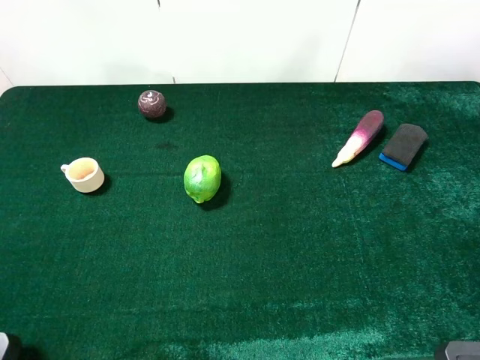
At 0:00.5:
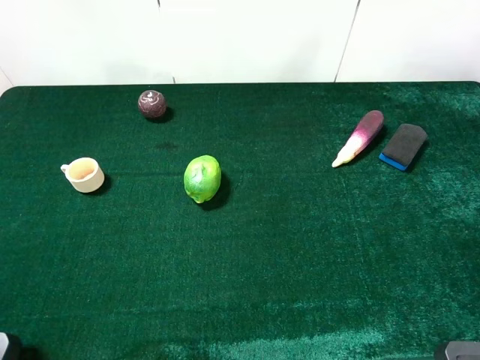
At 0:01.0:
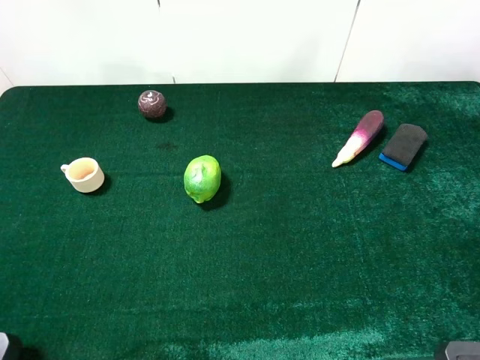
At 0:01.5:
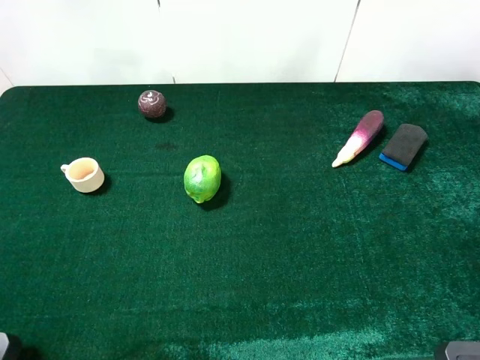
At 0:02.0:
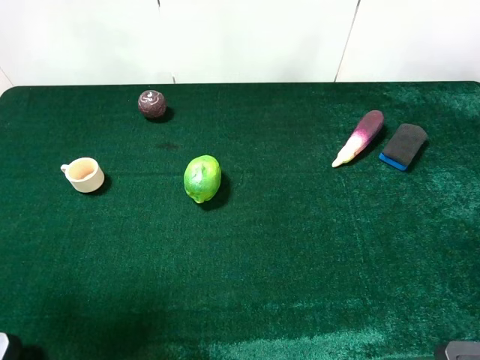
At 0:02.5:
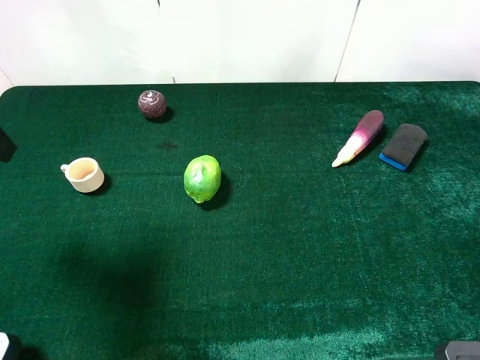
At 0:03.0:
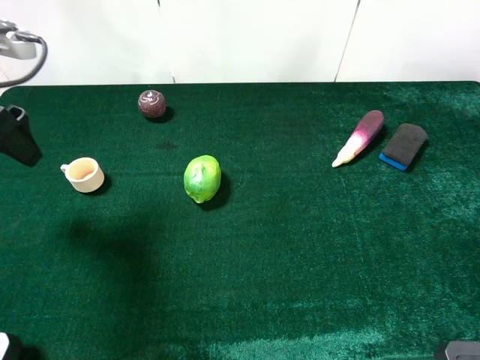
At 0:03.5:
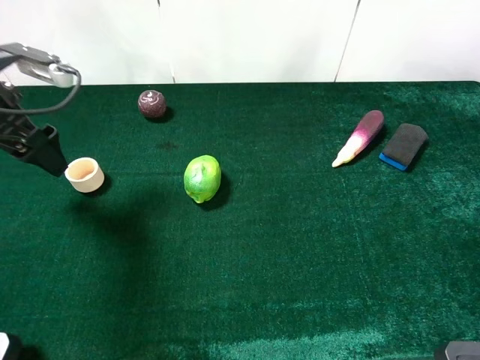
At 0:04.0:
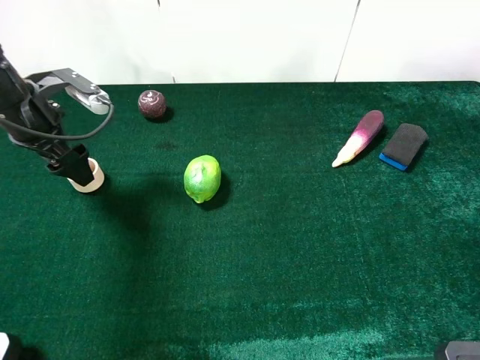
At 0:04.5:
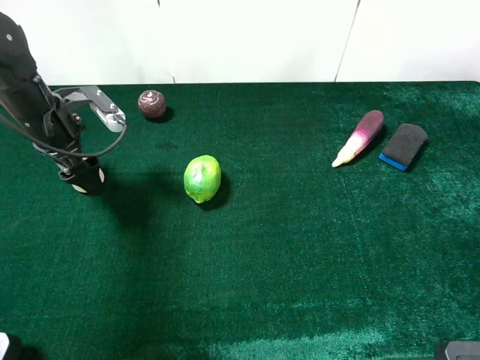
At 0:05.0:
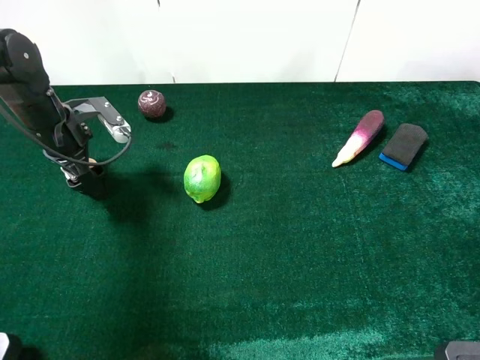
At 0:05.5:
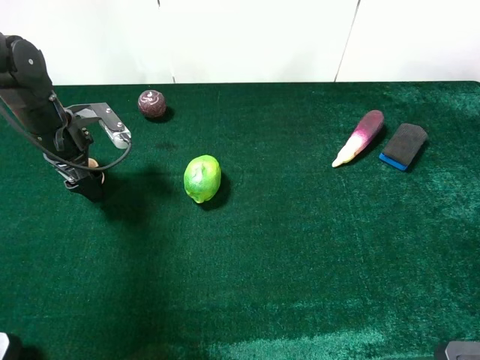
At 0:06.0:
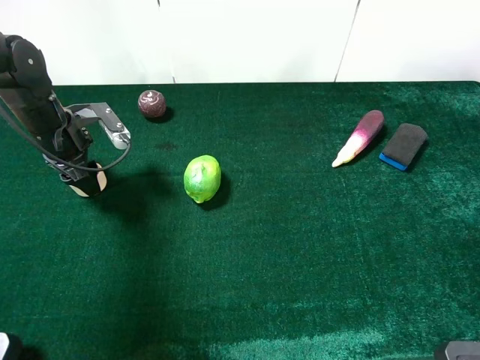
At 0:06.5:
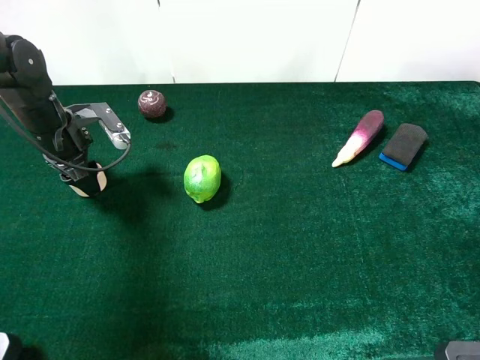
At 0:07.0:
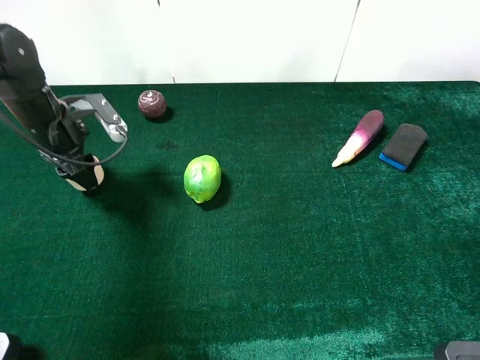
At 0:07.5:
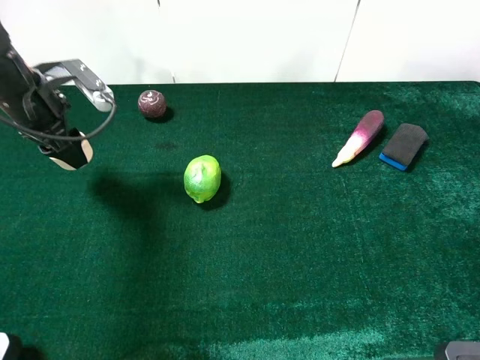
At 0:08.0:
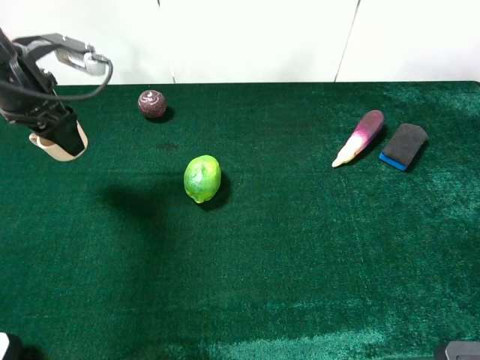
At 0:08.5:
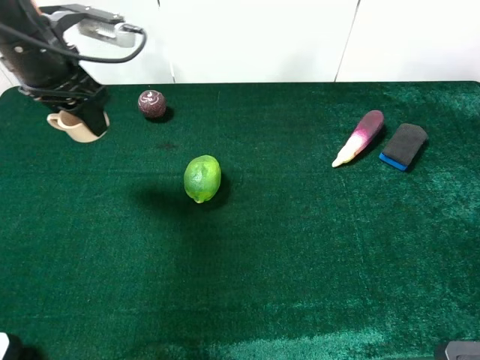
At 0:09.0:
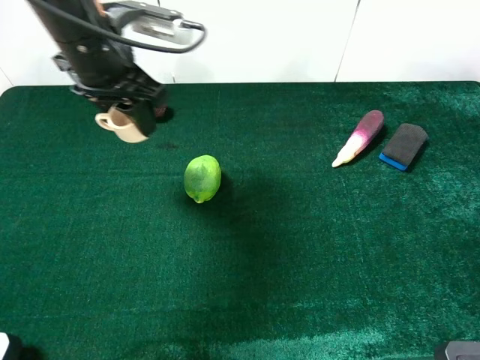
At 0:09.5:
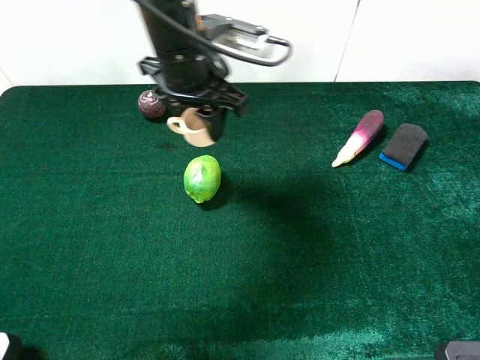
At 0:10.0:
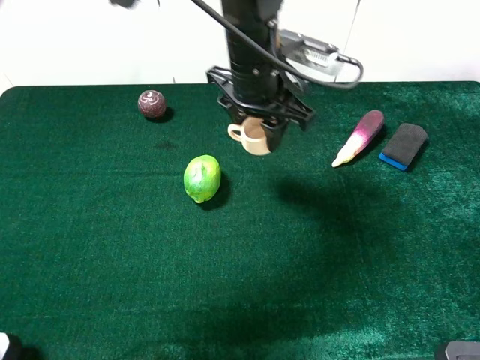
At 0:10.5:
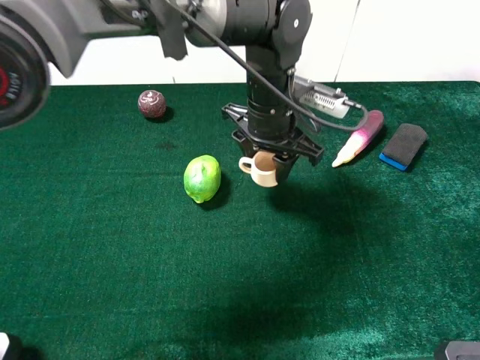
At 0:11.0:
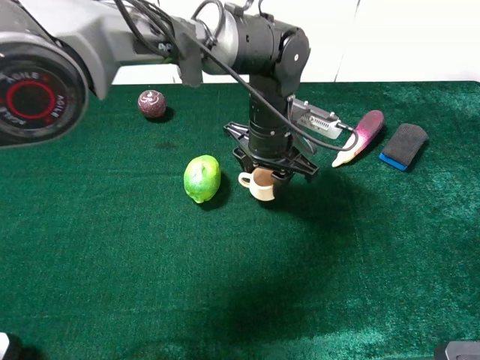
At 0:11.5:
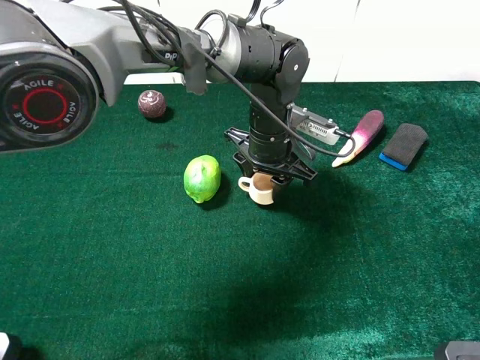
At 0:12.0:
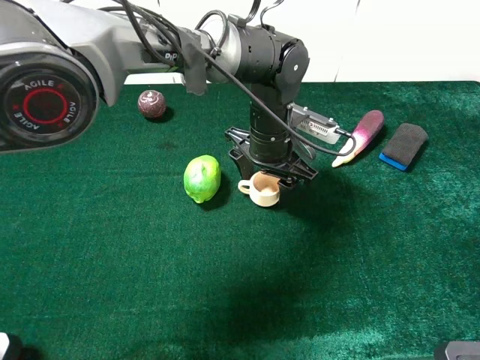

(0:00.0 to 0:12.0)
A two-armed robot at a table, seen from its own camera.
Task of the whole recording: the gripper move the object.
Step, 0:00.0 - 0:06.5: Grasp the teacup with the left gripper.
0:00.0 - 0:02.0: The left gripper is displaced forward by about 10 cm.
0:02.0 - 0:04.0: The left gripper goes some 25 cm forward and downward.
0:04.0 - 0:06.0: The left gripper shifts roughly 5 cm downward, and closes its fingers.
0:06.0 - 0:08.0: The left gripper shifts some 10 cm upward.
0:08.0 - 0:10.0: The left gripper moves to the right, some 30 cm.
0:10.0 - 0:12.0: The left gripper heads downward, covering some 10 cm, and opens up.

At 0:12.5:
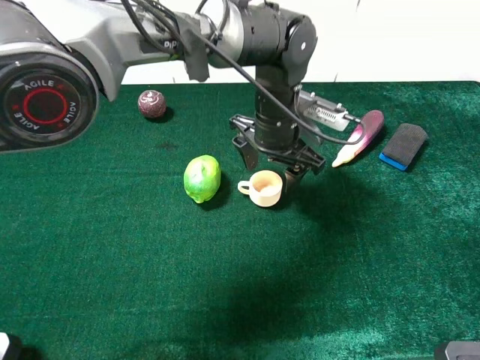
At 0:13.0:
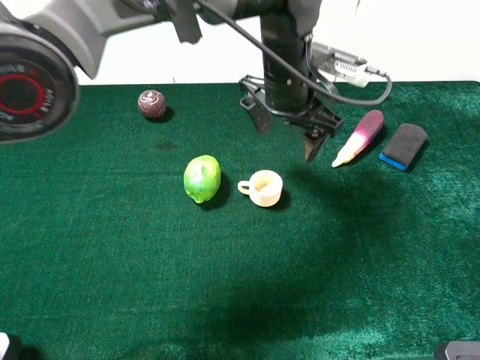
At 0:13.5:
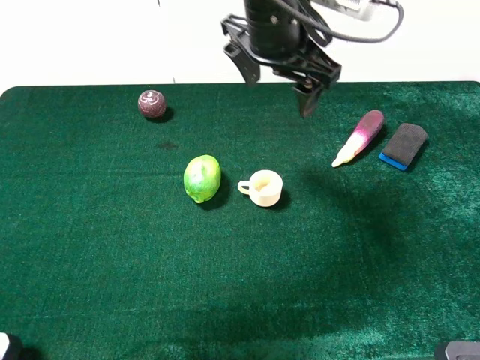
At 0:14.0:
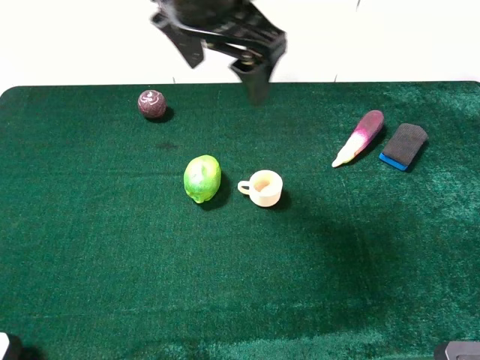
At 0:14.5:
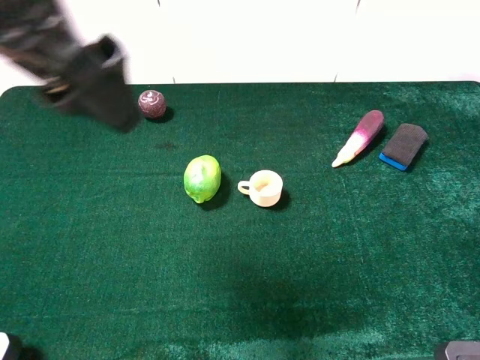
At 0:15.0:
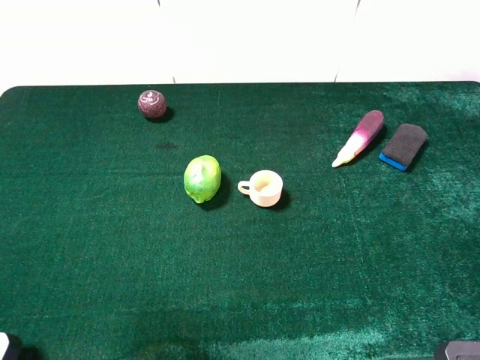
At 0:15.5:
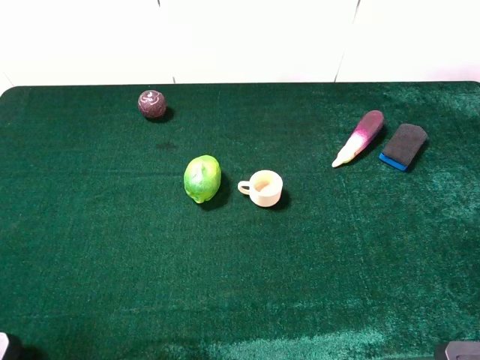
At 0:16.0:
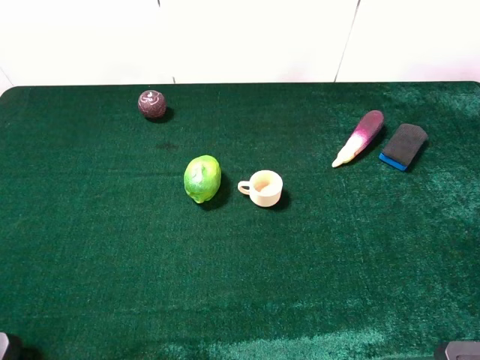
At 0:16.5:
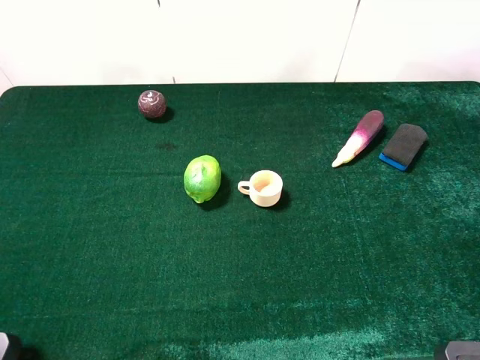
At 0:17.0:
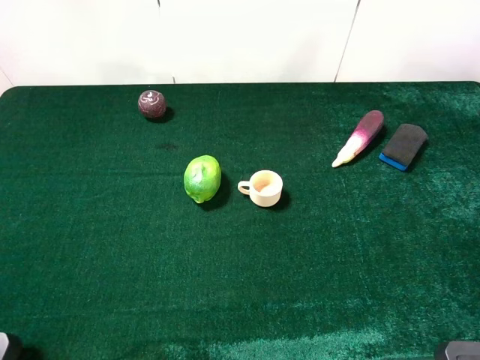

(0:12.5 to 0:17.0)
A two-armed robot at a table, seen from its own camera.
Task of the whole recording: the gripper move the object.
0:12.5 - 0:14.5: The left gripper is displaced upward, to the left and backward by approximately 35 cm, and opens up.
0:14.5 - 0:17.0: The left gripper heads backward, to the left and downward, covering approximately 25 cm.

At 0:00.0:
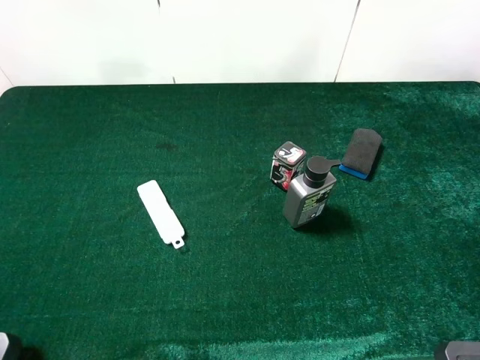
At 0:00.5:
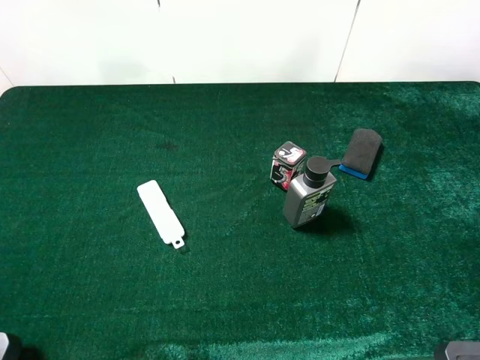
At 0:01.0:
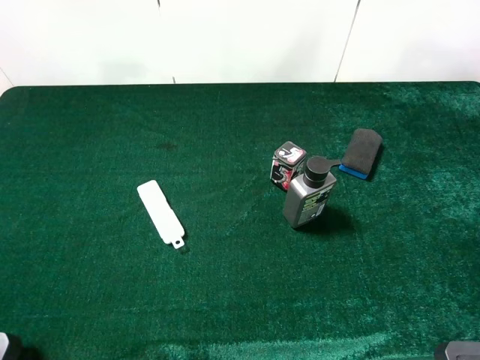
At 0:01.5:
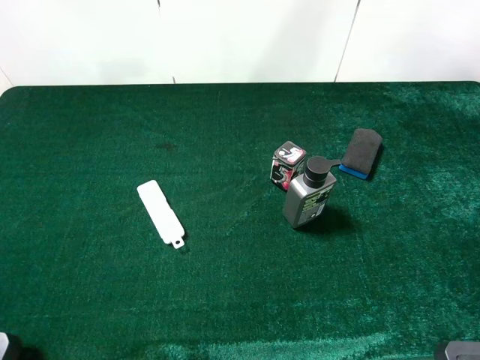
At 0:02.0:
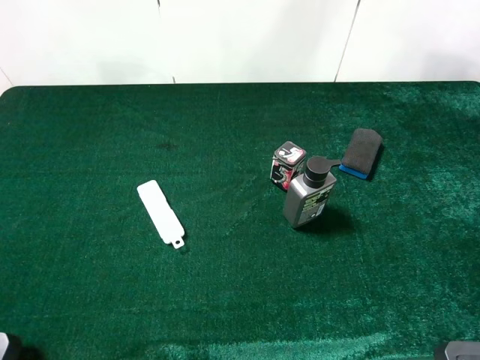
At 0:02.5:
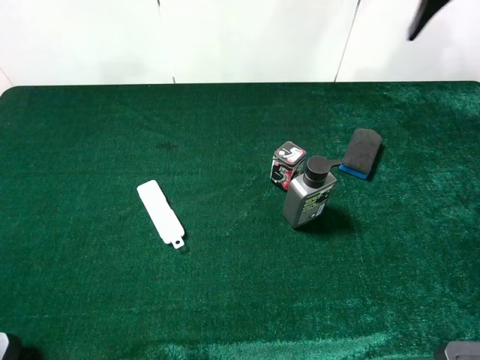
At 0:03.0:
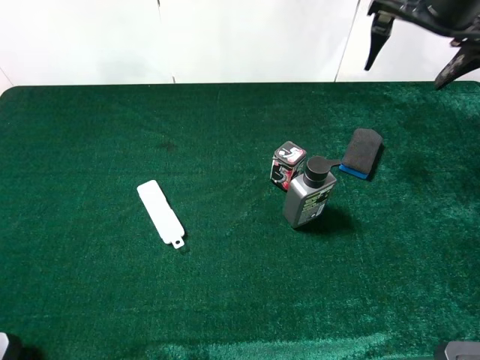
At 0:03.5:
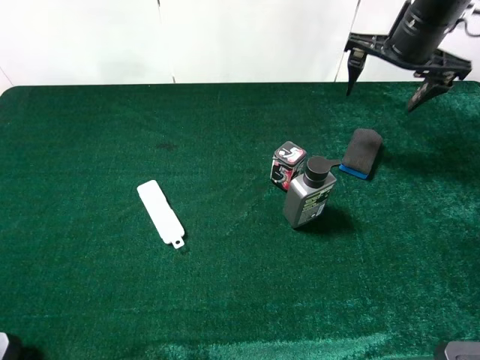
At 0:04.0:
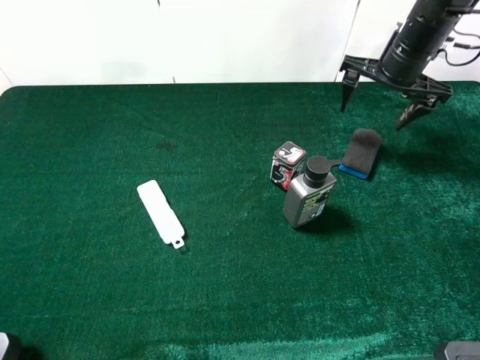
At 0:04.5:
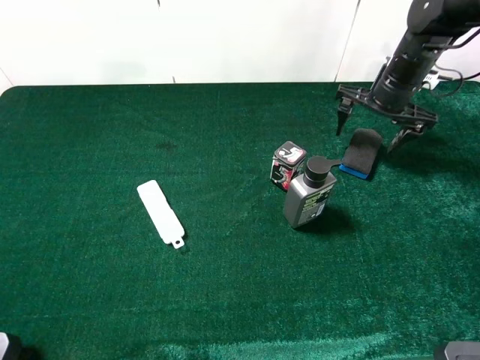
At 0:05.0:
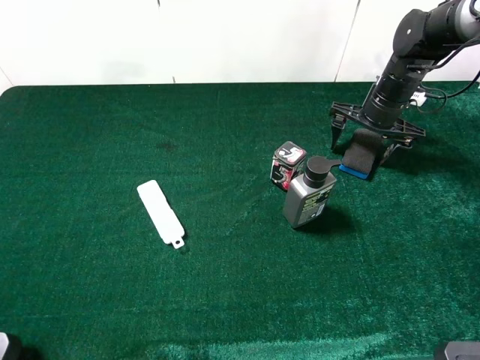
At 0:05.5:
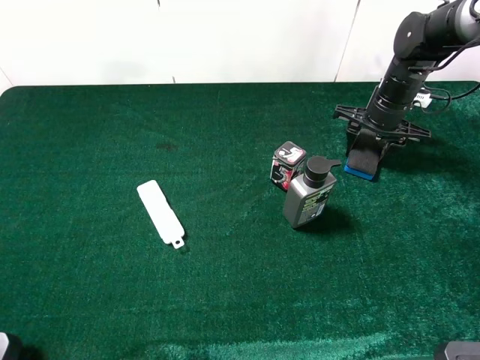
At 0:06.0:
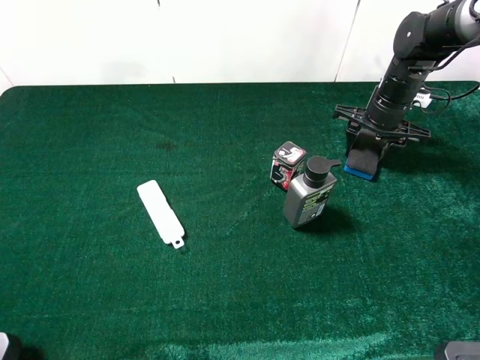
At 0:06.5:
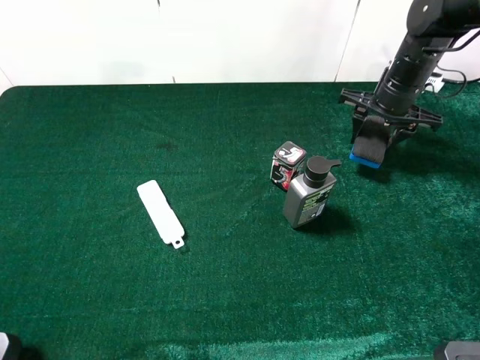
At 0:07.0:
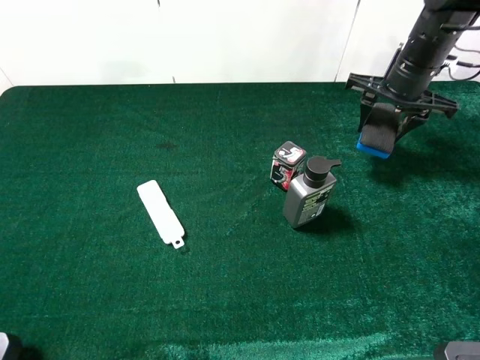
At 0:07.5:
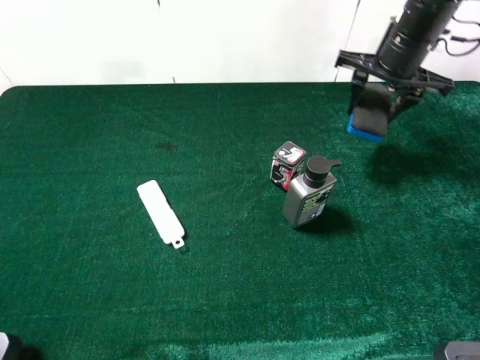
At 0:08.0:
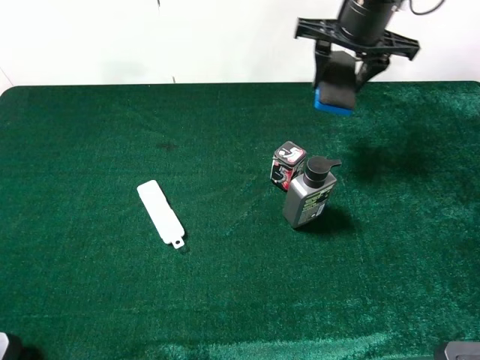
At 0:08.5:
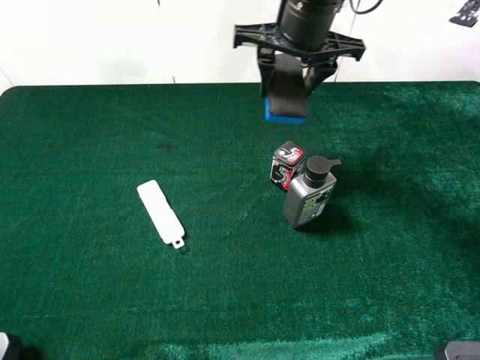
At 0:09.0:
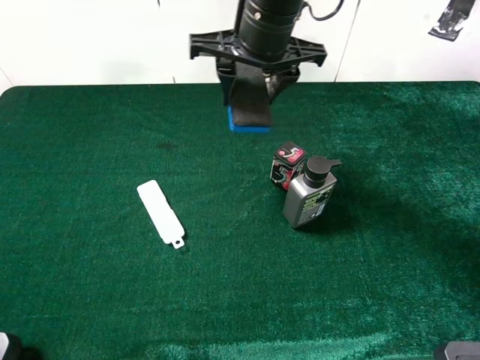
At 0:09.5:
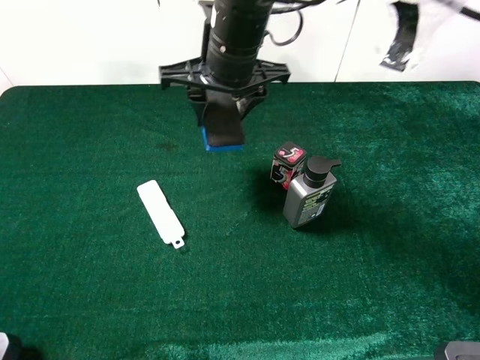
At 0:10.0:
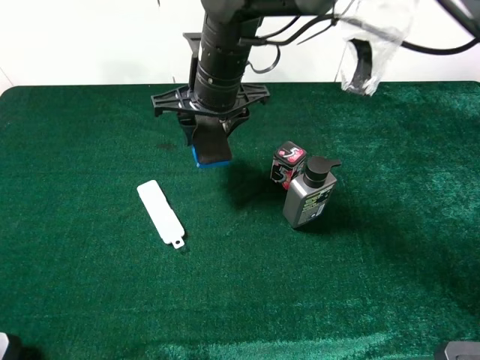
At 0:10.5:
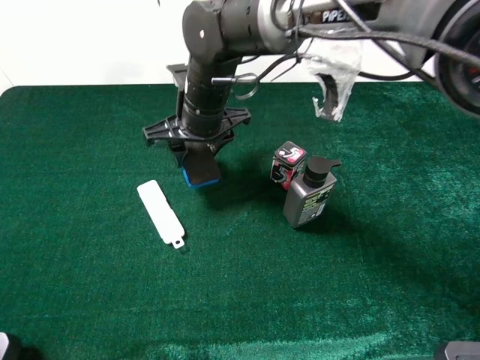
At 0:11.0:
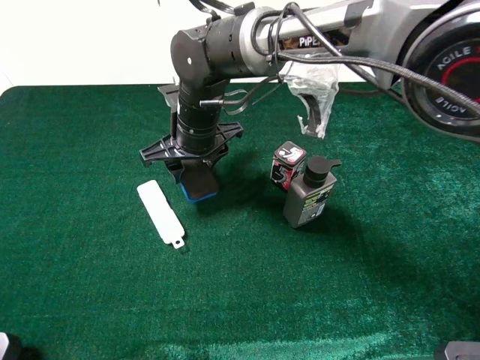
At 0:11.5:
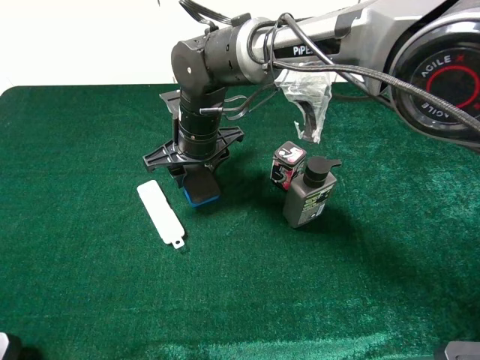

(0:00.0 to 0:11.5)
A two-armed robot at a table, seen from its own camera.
Task of the whole recording: the gripper move the object.
Step, 0:00.0 - 0:06.0: Grasp the blue blackboard earser with the right gripper.
0:02.0 - 0:04.0: The right gripper shifts approximately 25 cm downward and forward.
0:04.0 - 0:06.0: The right gripper moves downward, about 10 cm, and closes.
0:06.0 - 0:07.5: The right gripper shifts some 10 cm upward.
0:07.5 - 0:09.5: The right gripper is displaced to the left by approximately 25 cm.
0:09.5 - 0:11.5: The right gripper shifts approximately 10 cm downward.
